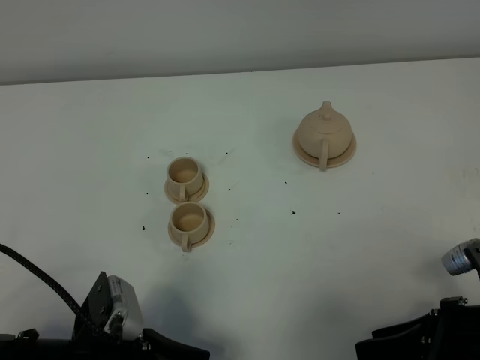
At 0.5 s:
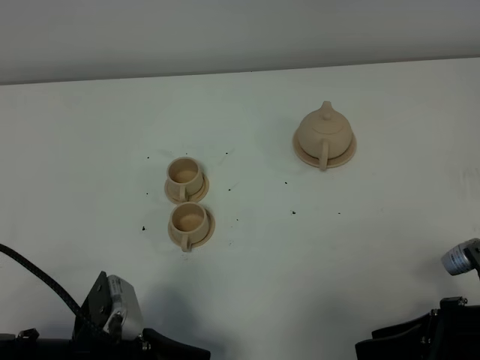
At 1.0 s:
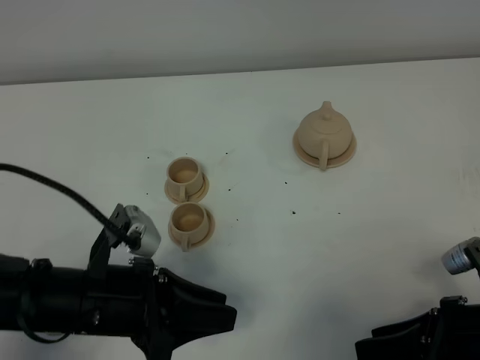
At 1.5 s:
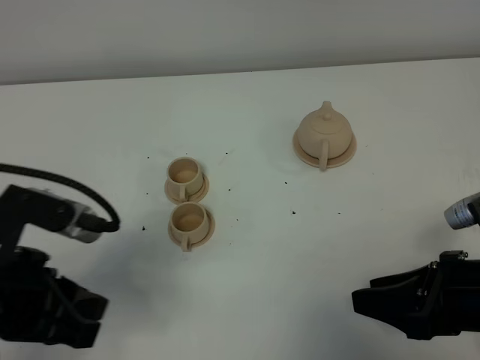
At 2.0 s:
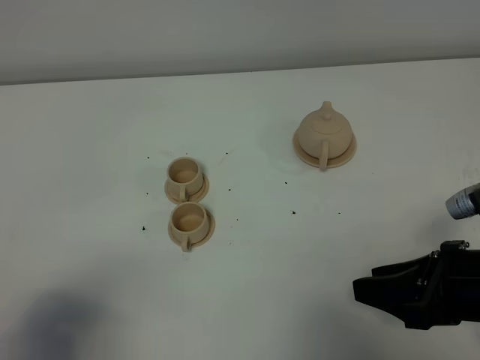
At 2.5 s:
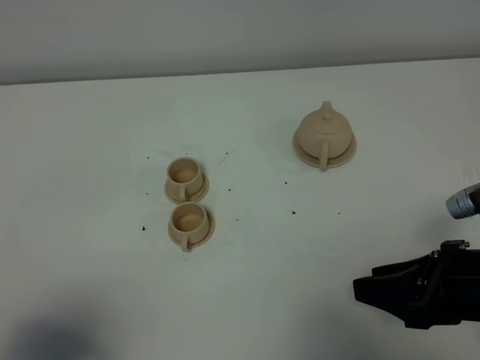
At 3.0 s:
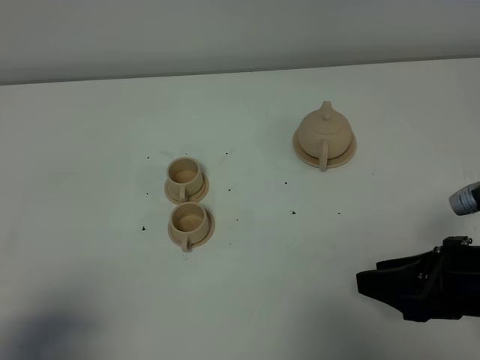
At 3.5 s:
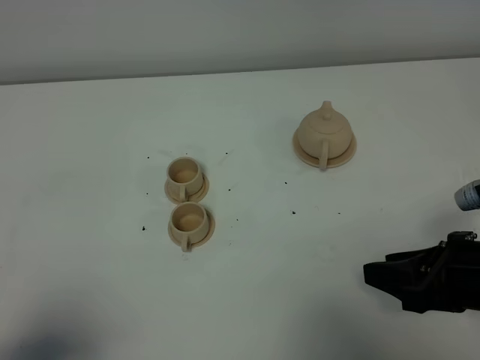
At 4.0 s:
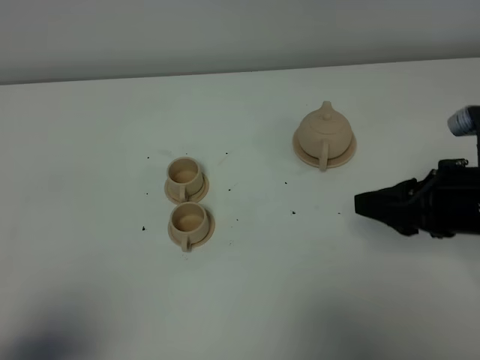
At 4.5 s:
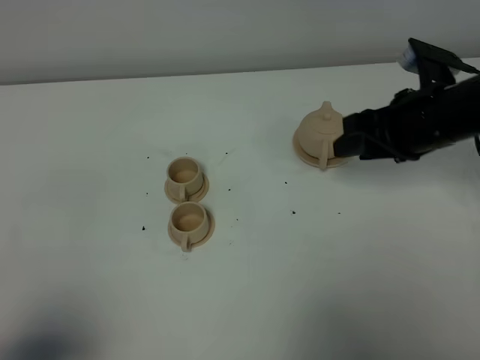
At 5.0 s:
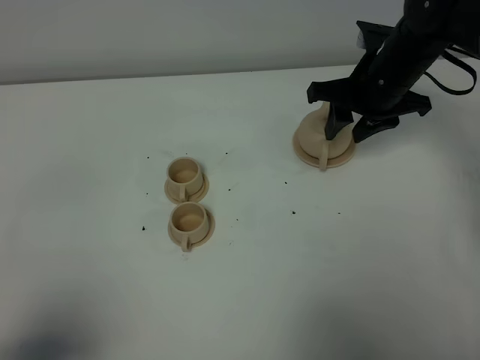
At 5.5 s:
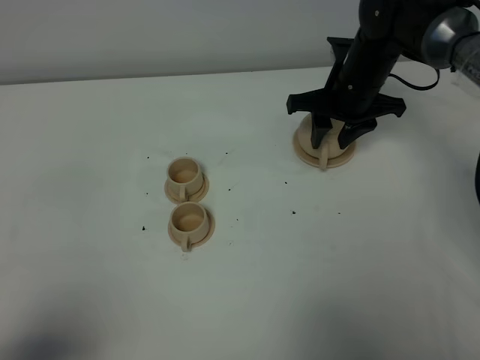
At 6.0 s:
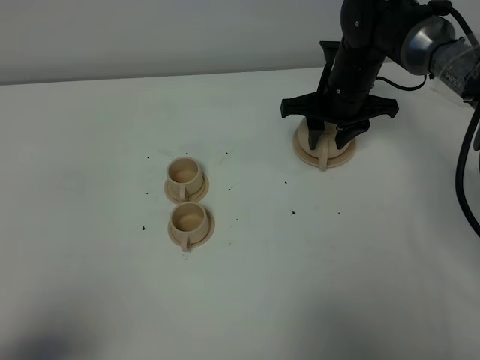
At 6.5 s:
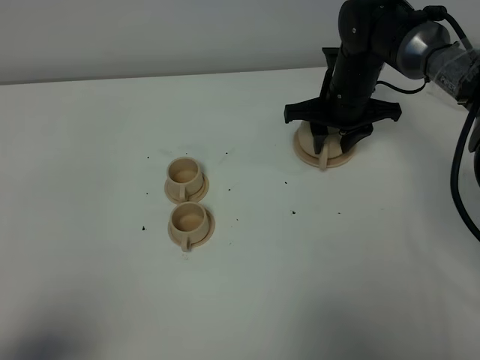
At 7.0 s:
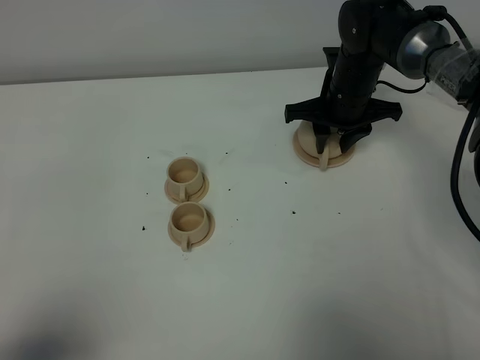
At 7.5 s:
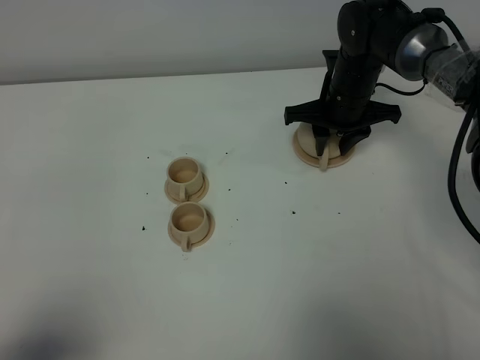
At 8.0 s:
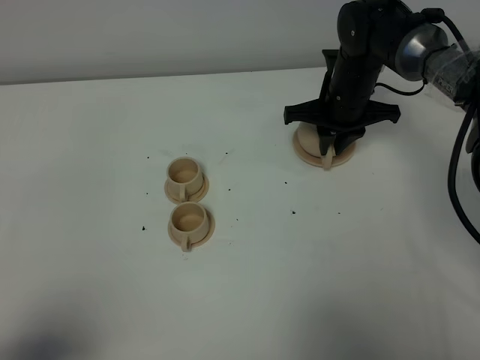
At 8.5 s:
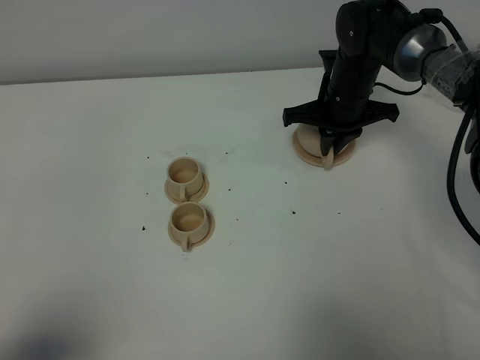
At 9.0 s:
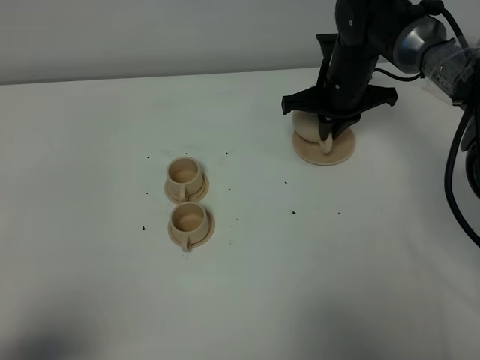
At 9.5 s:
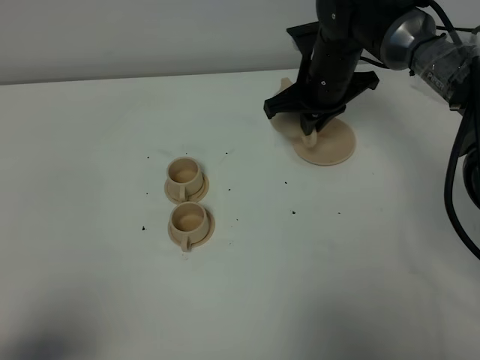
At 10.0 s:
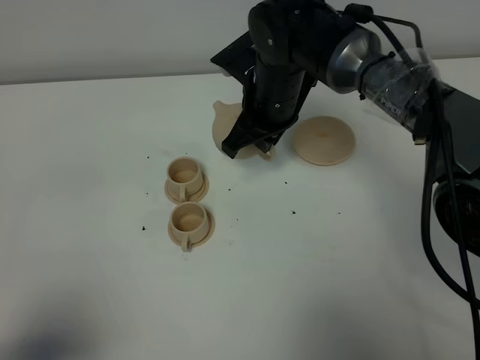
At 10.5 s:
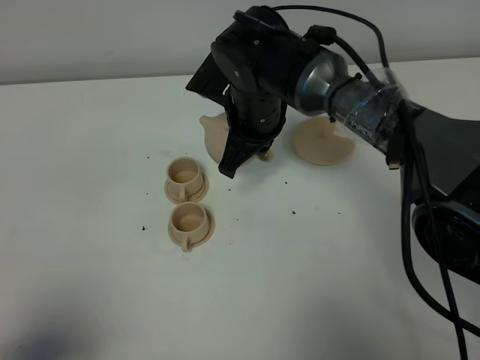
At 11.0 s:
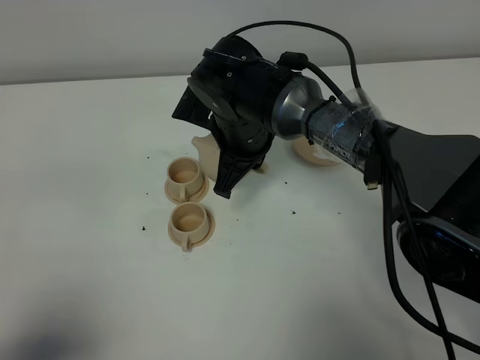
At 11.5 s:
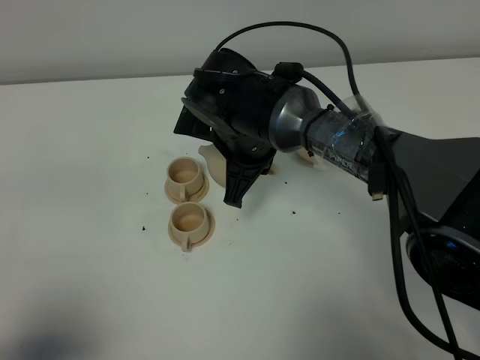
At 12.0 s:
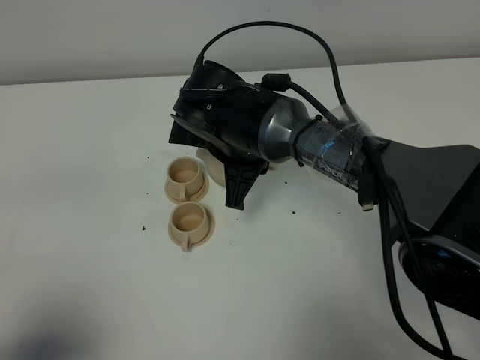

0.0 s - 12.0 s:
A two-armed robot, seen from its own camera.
Task of the whole recording: grasp the brown teapot and pour the tea into the two brown teacups one by one, put the brown teapot back in its original place.
Step, 0.0 s - 9.0 s: Pick up the teapot with the right gripper.
0.0 s - 2.0 s: The left gripper shifts some 15 cm upward and to the left.
2.0 s - 4.0 s: The right gripper is displaced forward by approximately 5 cm.
4.0 s - 6.0 s: The right gripper goes roughly 25 cm forward and to the left.
6.0 s - 8.0 s: The right gripper closes.
8.0 s - 10.0 s: The right gripper shifts about 15 cm to the left, backward and upward.
10.0 s - 12.0 s: The right gripper heads backward, covering roughly 5 cm.

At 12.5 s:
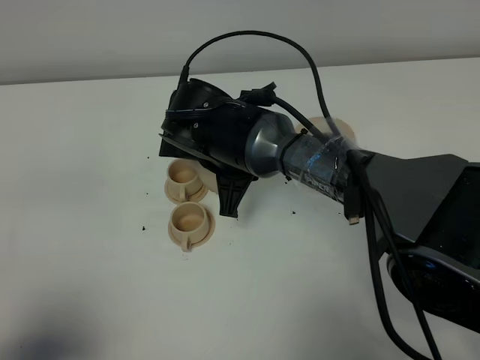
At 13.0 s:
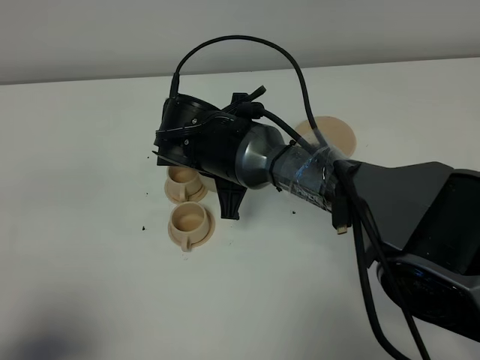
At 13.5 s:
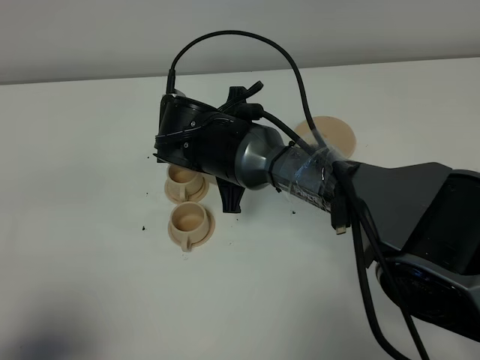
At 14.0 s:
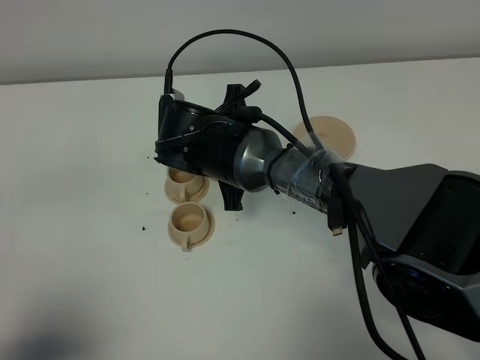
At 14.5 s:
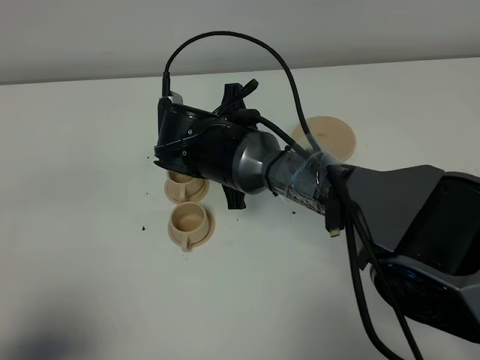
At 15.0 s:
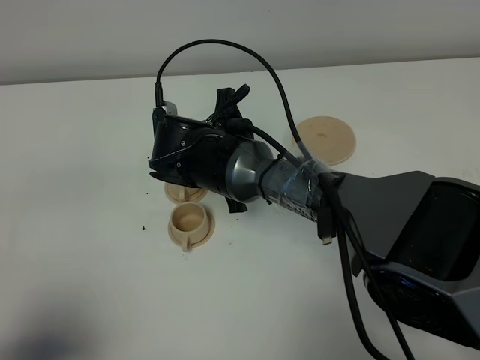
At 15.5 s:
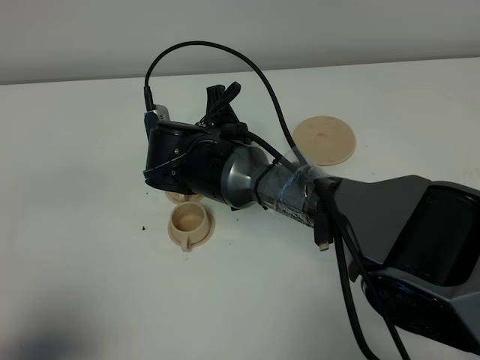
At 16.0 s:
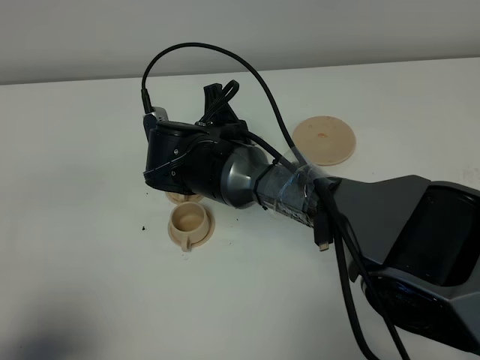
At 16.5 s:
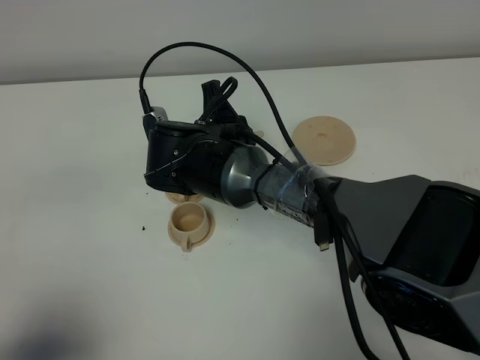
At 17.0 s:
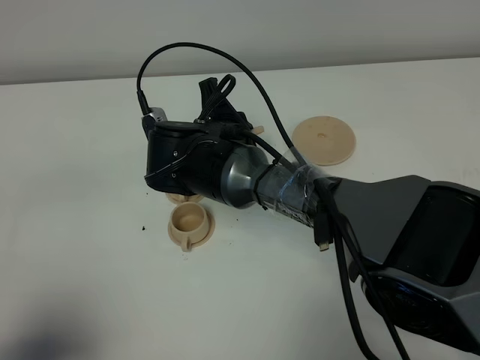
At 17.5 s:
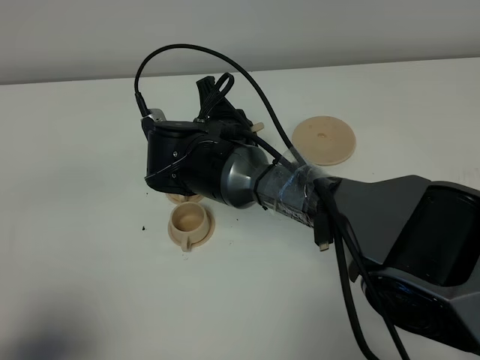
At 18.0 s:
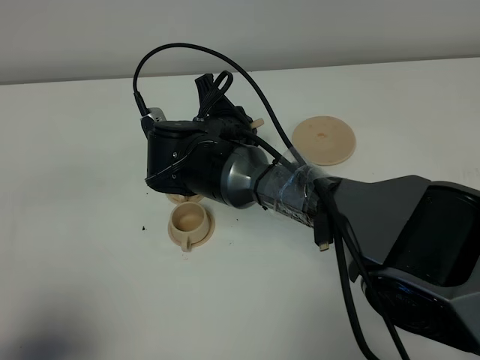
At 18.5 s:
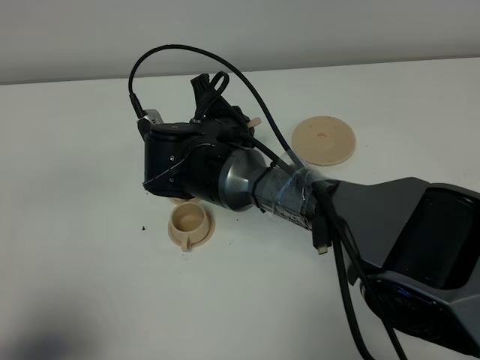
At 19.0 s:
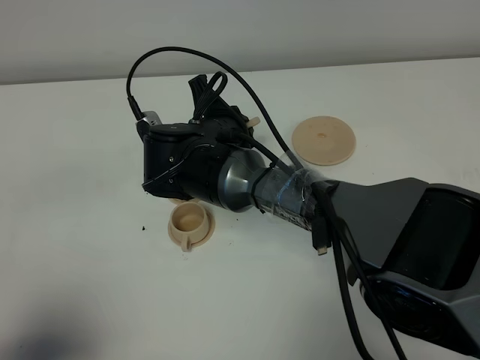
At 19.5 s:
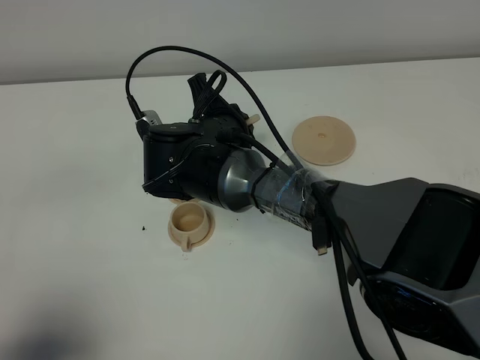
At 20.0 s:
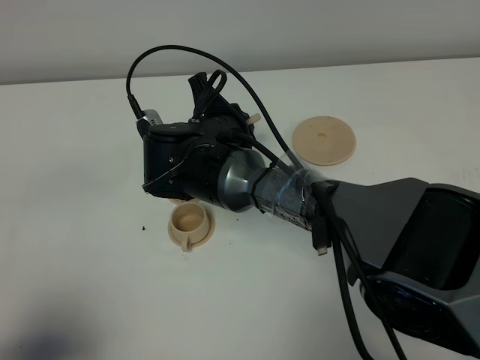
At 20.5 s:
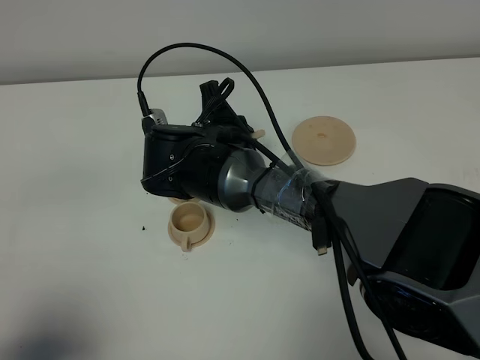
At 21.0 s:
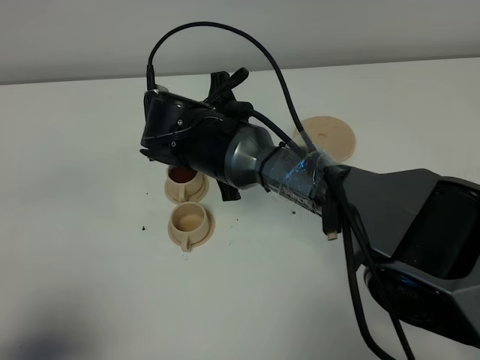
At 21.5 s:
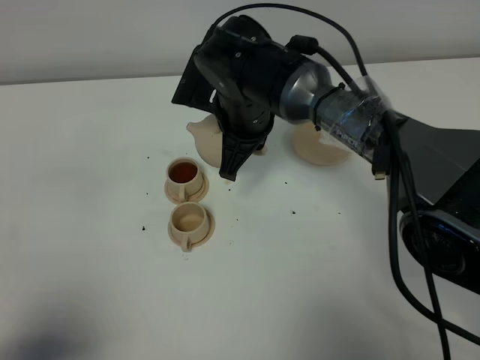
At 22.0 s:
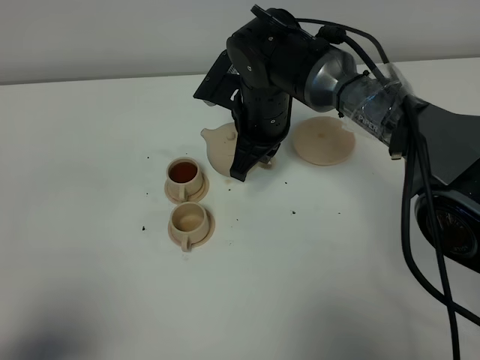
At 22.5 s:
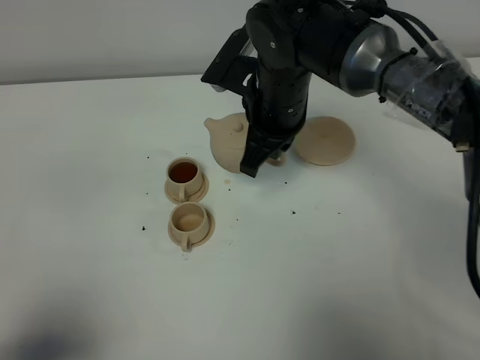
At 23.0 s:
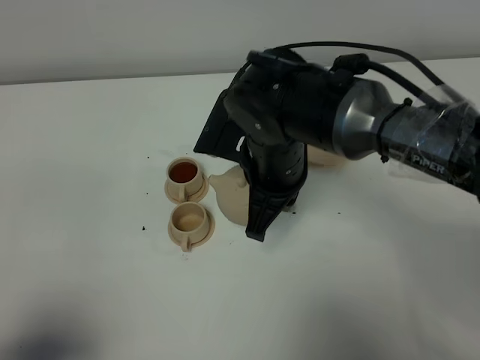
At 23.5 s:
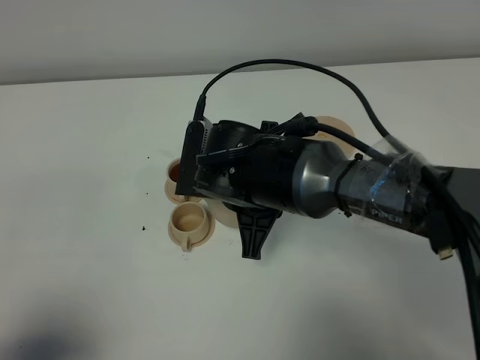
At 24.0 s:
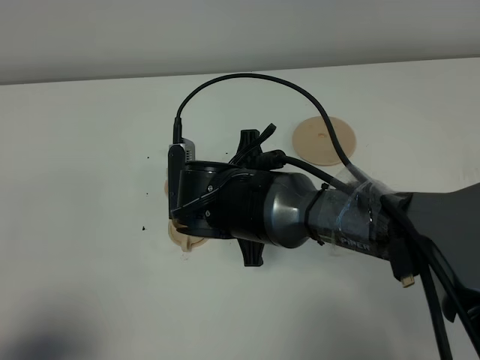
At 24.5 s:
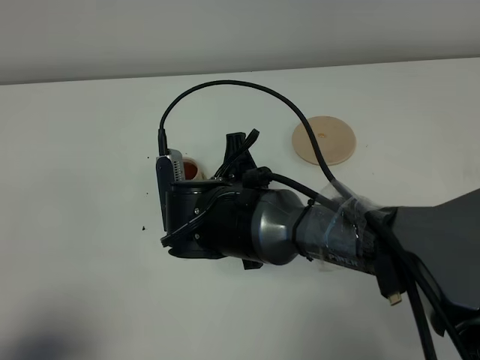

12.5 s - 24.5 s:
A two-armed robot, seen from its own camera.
Task of the whole recording: grasp the brown teapot and pour the tea into the two brown teacups one by one, put the brown teapot back in its original place.
Step, 12.5 s - 21.0 s: Pour tea into the teacup with the right gripper.
12.5 s - 14.5 s: The grippers move only a little.
14.5 s - 16.5 s: The grippers stay close to where they were, moving slightly.
16.5 s - 20.5 s: There are only small adjustments of the grippers.
20.5 s - 22.5 s: The right gripper moves to the right and upward, approximately 10 cm.
22.5 s - 24.5 s: The right gripper goes some 15 cm backward, downward and to the left.

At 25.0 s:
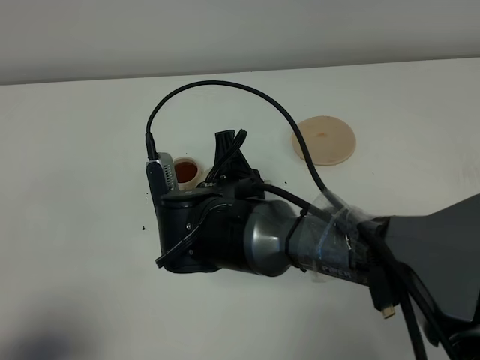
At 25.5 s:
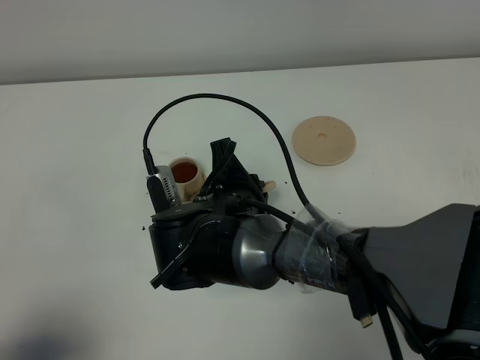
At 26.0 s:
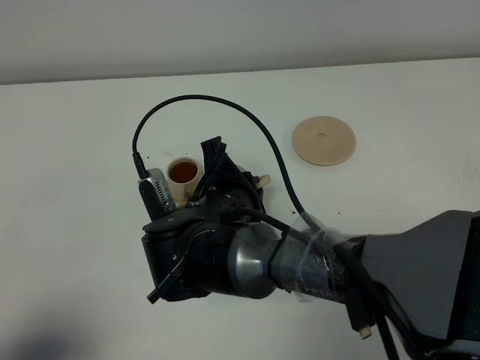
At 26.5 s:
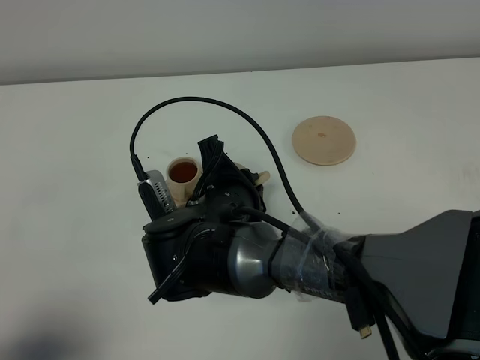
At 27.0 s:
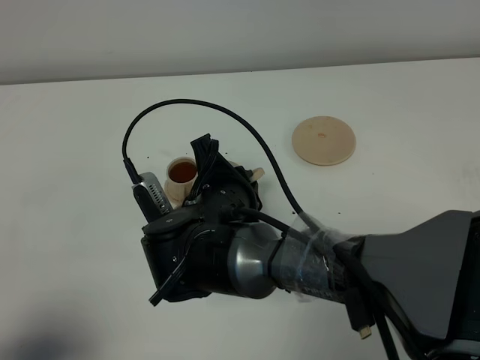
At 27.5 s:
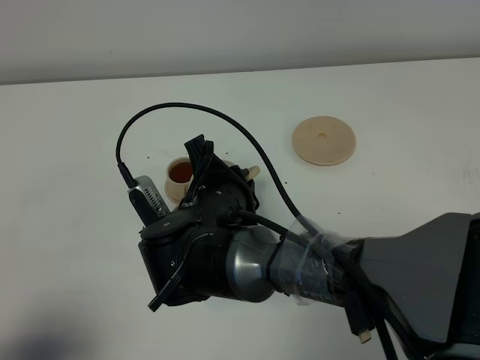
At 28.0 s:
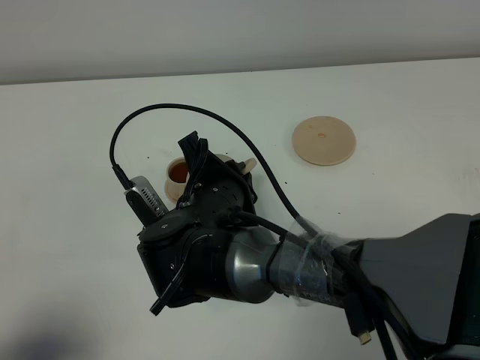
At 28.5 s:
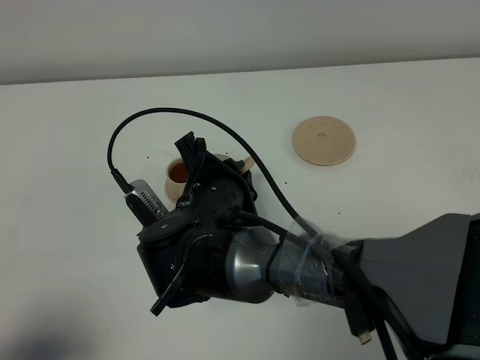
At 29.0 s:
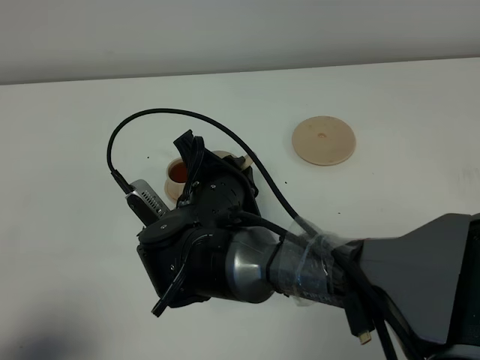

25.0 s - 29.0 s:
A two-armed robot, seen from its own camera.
Task of the whole recording: grasp the brown teapot and pour the tea into the two brown teacups one by one, put the brown teapot back in its original place.
25.0 s - 27.0 s: There are only small adjustments of the grippers.
27.0 s - 29.0 s: The grippers move only a little.
